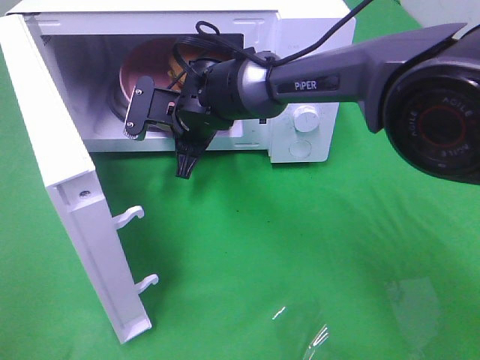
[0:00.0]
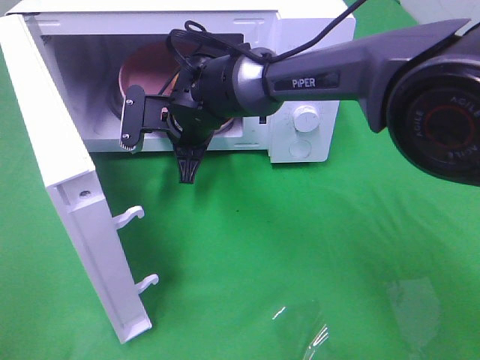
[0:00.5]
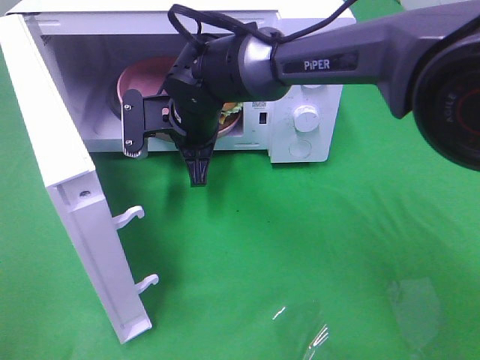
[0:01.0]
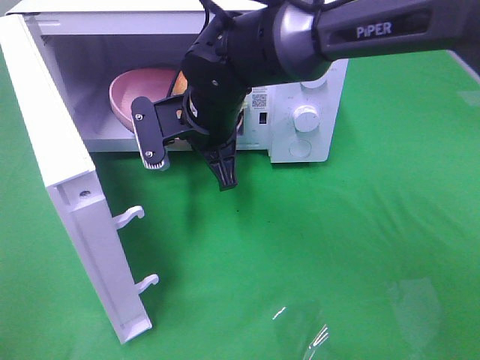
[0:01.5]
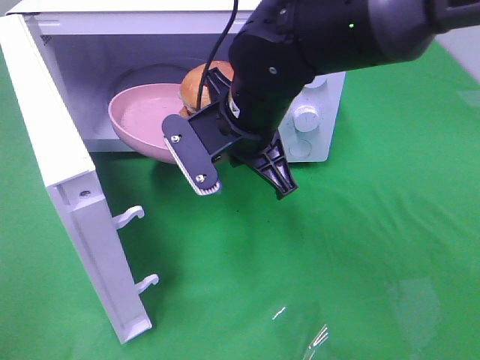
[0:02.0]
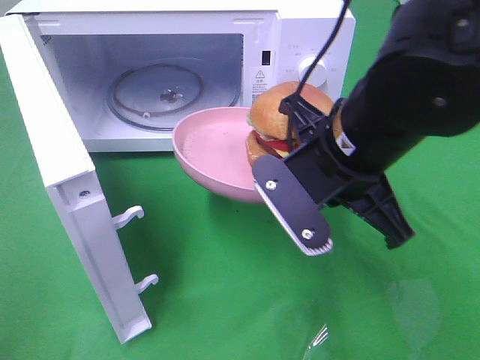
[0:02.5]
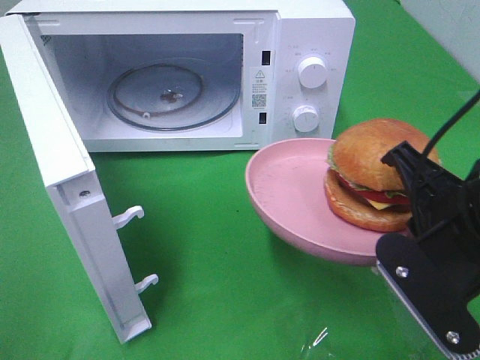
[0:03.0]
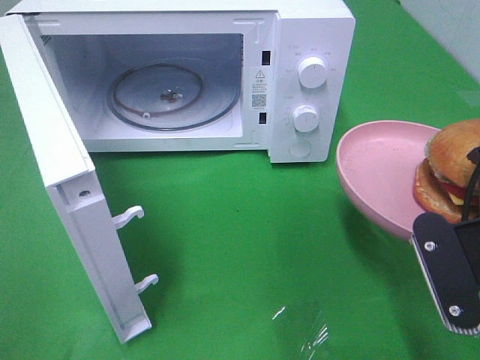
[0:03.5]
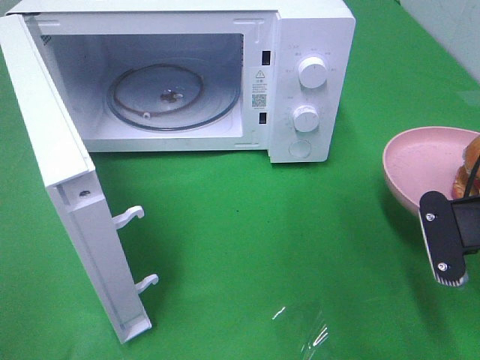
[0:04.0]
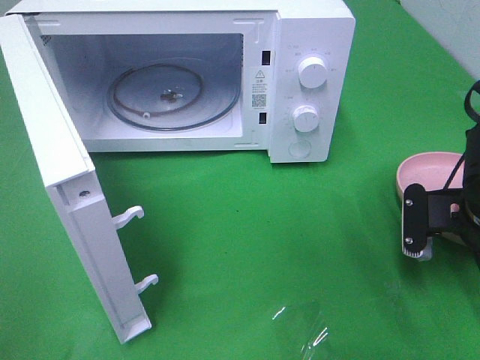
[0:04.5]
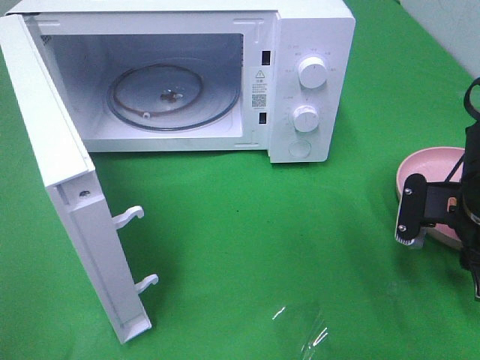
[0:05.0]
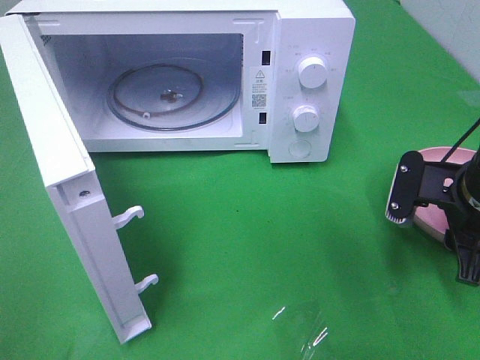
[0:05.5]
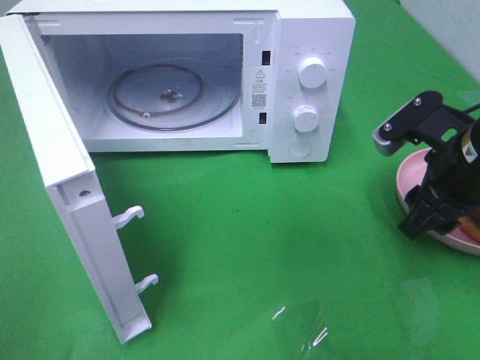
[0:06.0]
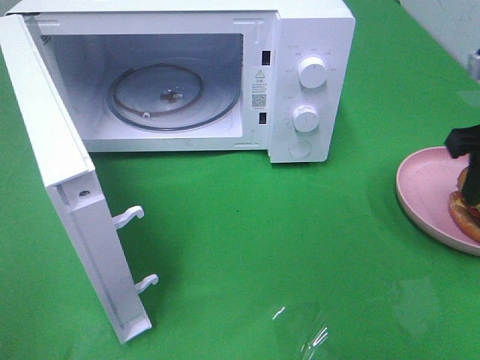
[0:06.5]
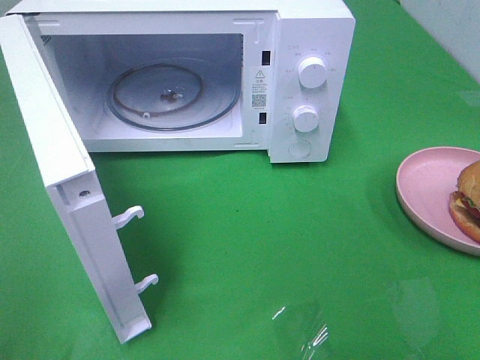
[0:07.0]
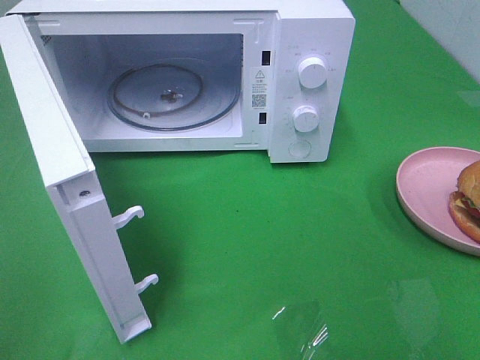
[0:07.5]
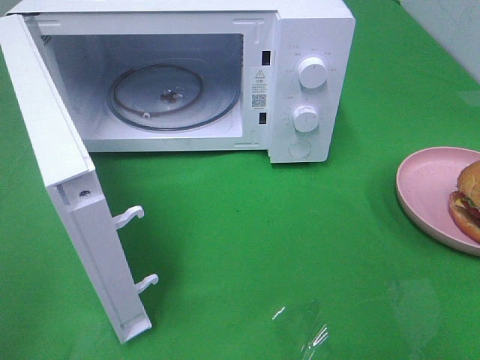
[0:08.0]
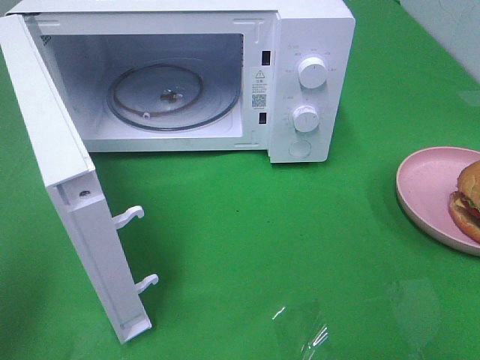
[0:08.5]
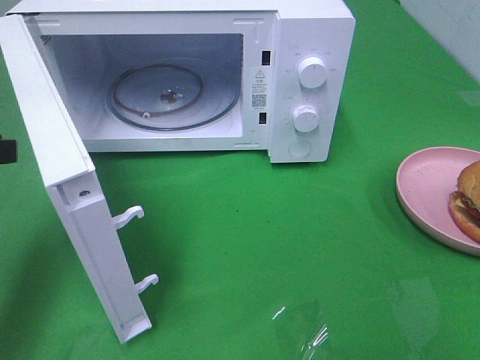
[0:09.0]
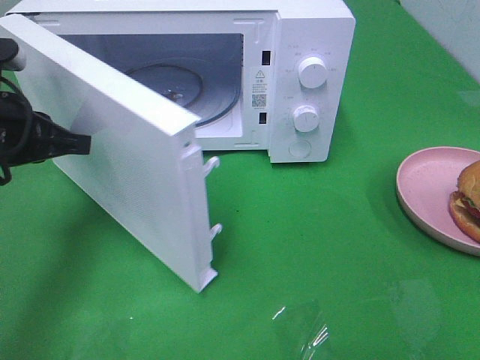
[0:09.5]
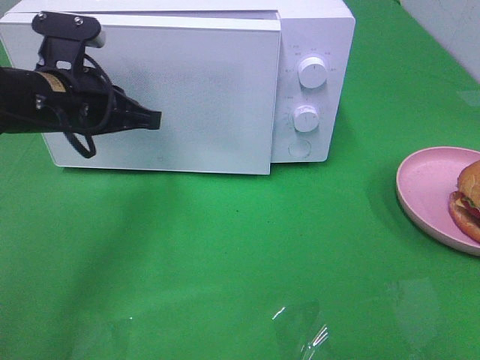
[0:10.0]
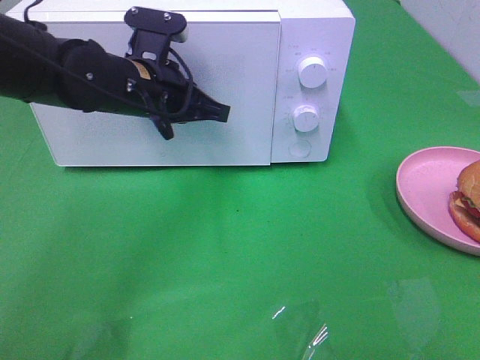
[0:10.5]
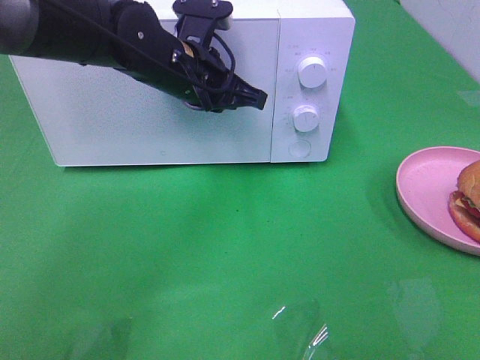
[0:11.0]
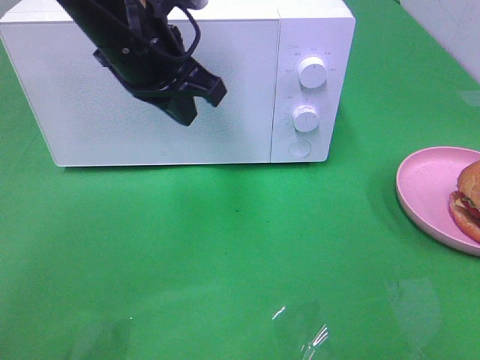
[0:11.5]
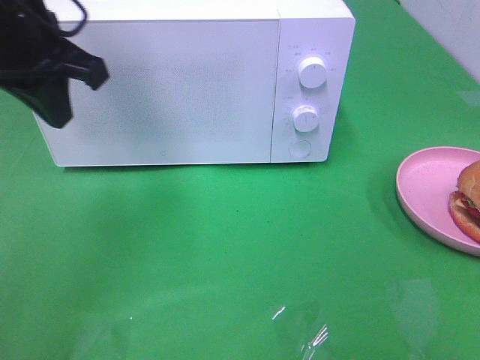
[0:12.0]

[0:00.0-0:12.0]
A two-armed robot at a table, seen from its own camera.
Task of the whole recording: Heat the burger.
Step, 0:00.5 to 0:06.0: Right hand: place the plate on the table.
Step, 0:06.5 to 0:11.5: Left hand: close the microwave door.
0:00.0 to 0:02.0: The right gripper goes roughly 15 cm backward, upward and to the right.
0:02.0 to 0:04.0: The right gripper heads to the right and backward, covering approximately 25 cm.
0:04.0 to 0:06.0: The right gripper shifts some 5 cm forward, and opens up.
0:06.0 to 0:08.0: The right gripper travels backward and upward by about 30 cm.
0:08.0 to 0:10.0: The left gripper is displaced forward and to the right by approximately 35 cm.
0:10.0 to 0:12.0: The left gripper goes roughly 10 cm upward, goes to the right and returns, some 10 cm each way, and opens and closes again.

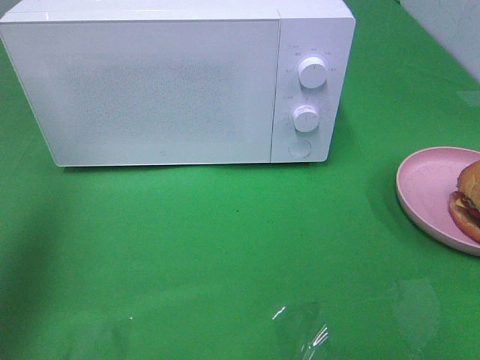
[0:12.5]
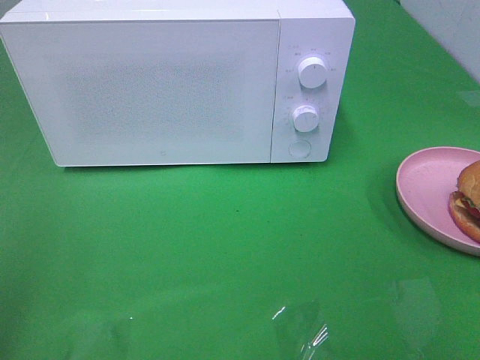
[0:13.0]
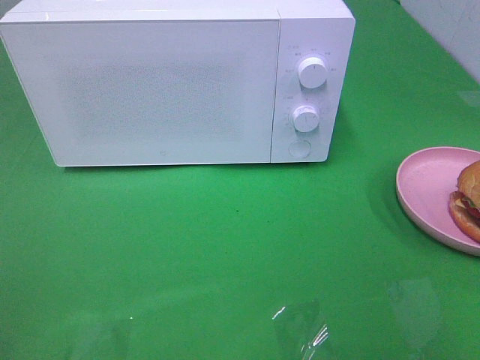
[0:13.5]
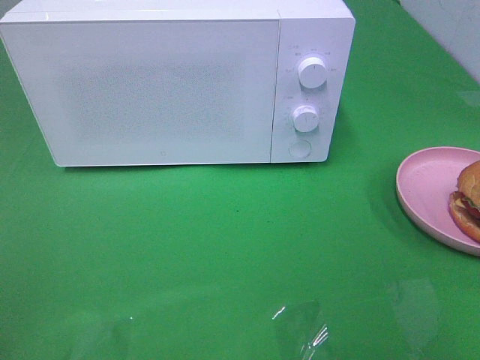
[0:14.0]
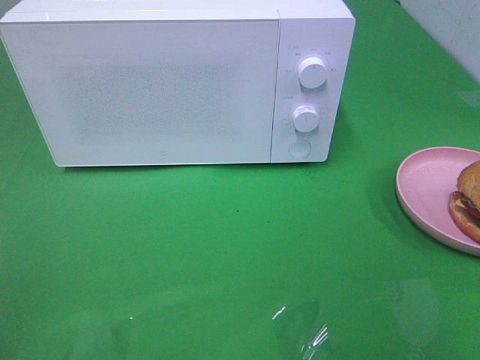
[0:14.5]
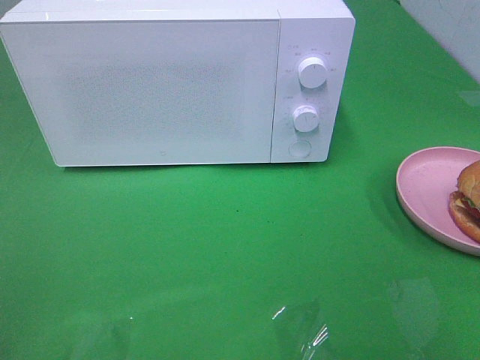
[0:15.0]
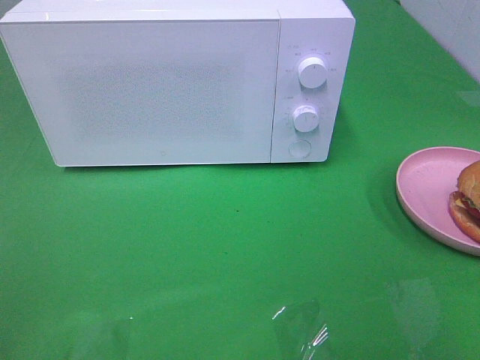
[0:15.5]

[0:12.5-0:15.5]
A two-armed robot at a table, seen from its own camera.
Task of the whole recording: Heat the burger.
0:12.5 to 0:14.0: The left gripper moves backward, roughly 20 cm.
0:14.0 to 0:15.5: The two grippers keep their place.

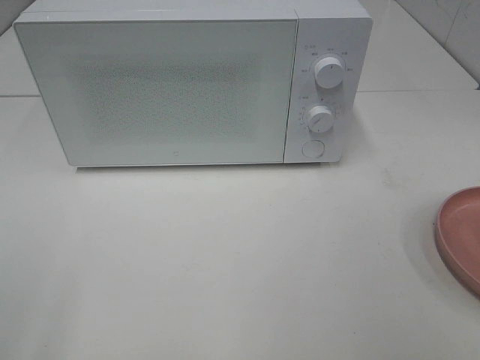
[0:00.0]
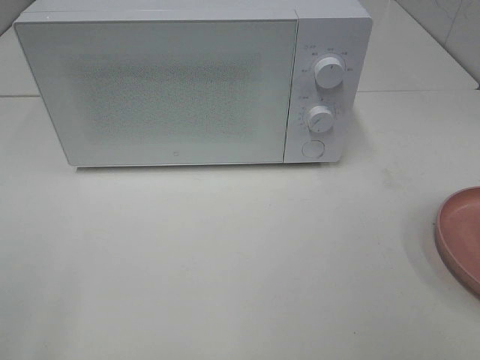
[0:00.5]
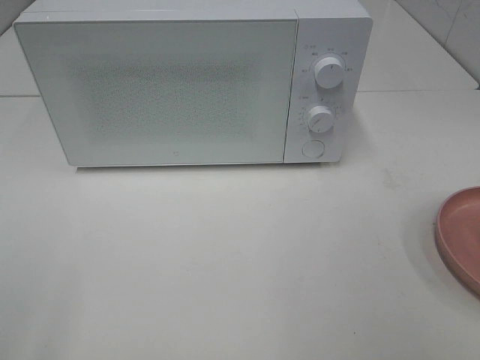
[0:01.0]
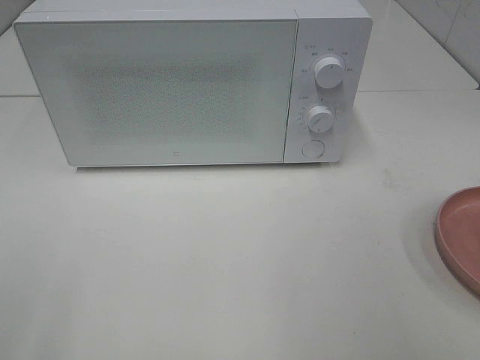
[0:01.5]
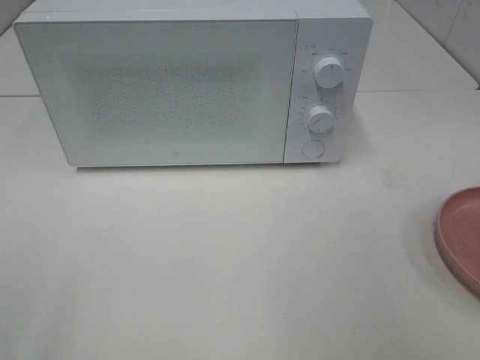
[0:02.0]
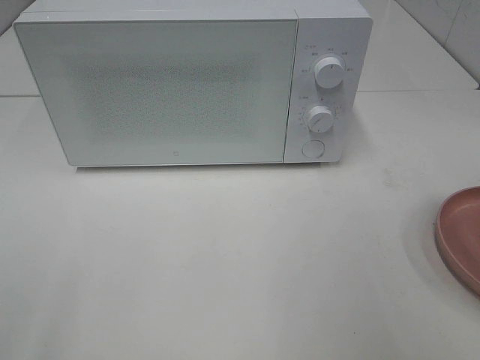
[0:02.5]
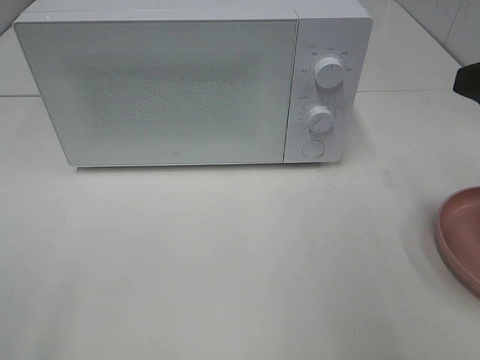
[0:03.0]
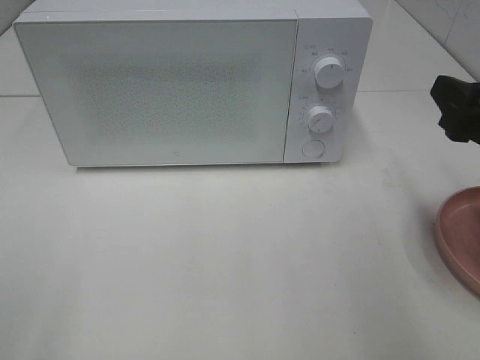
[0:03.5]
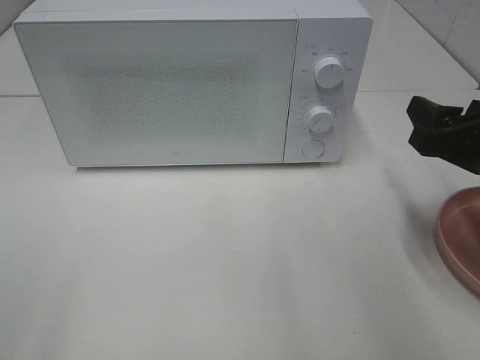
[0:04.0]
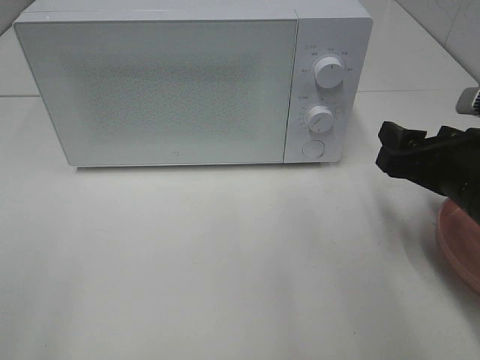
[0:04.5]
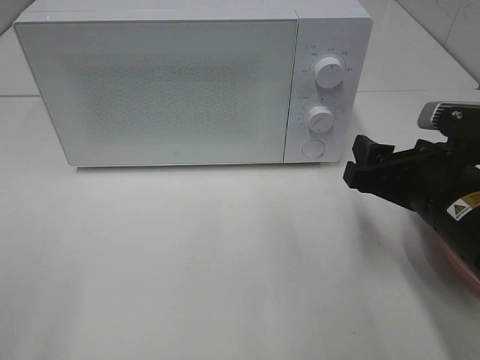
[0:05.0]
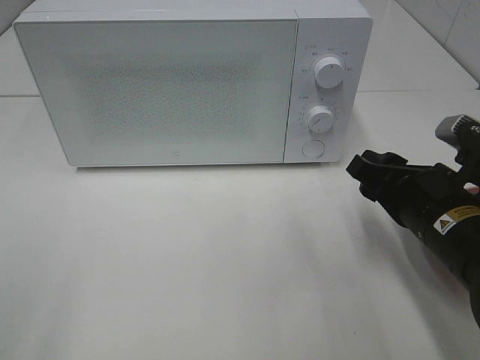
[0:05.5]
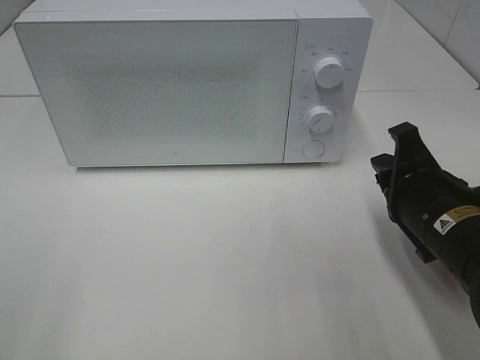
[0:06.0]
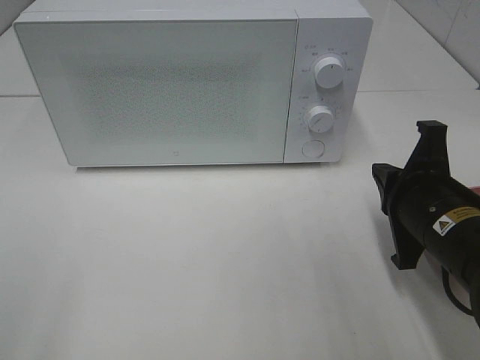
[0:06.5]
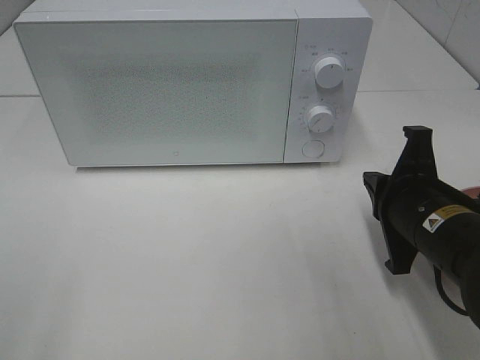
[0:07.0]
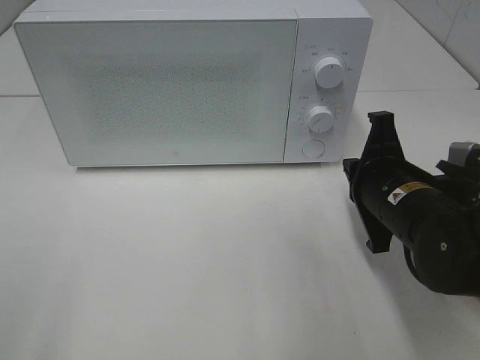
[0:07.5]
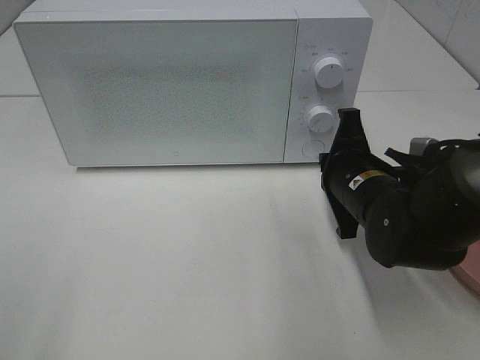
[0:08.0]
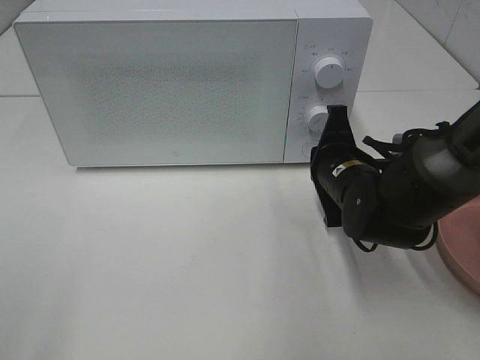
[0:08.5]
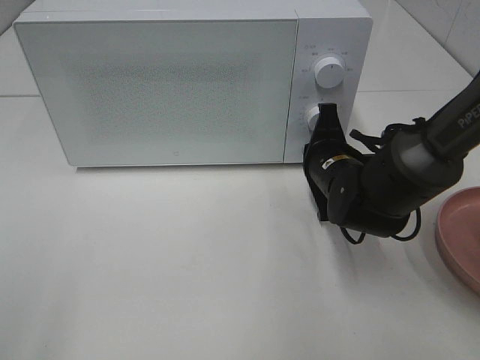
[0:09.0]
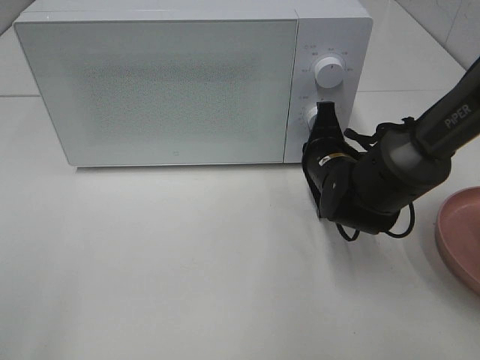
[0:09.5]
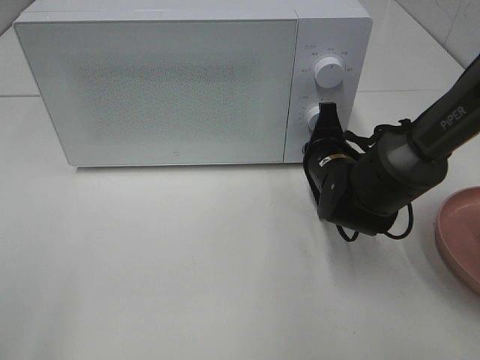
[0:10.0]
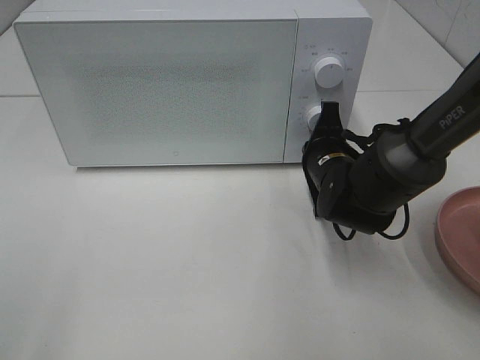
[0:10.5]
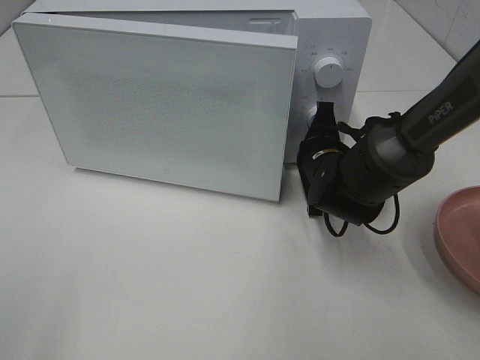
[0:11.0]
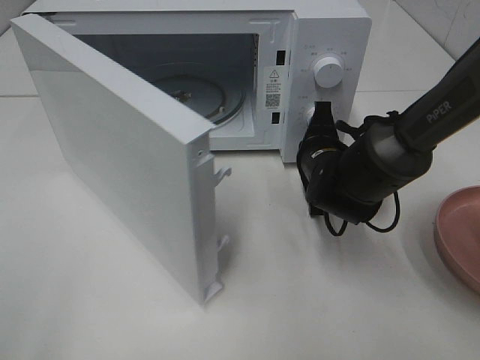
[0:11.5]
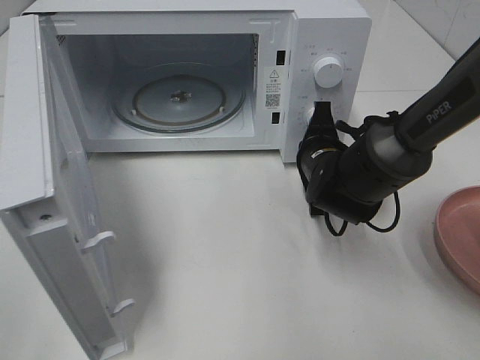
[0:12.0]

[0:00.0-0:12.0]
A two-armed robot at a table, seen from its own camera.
Task of the whole recording: Heat the burger.
0:02.0 to 0:04.0: The right gripper travels downward and forward by about 20 cm.
0:04.0 to 0:06.0: The right gripper travels to the left by approximately 5 cm, and closes its fingers.
0:06.0 to 0:08.0: The right gripper travels forward by about 5 cm.
0:08.0 to 0:10.0: The right gripper is displaced forward by roughly 5 cm.
